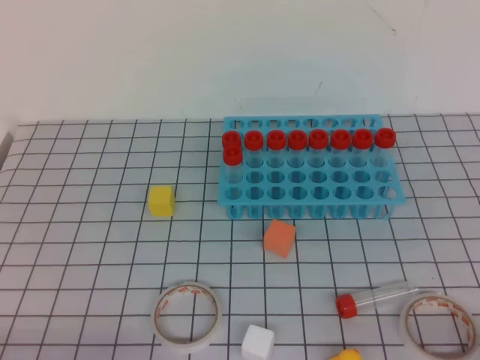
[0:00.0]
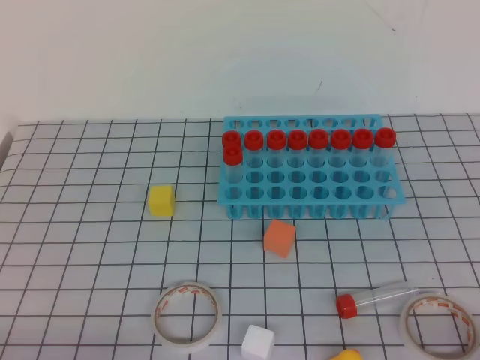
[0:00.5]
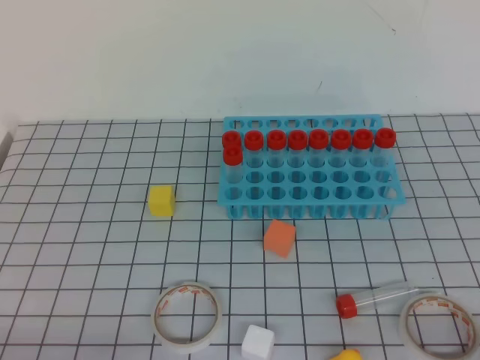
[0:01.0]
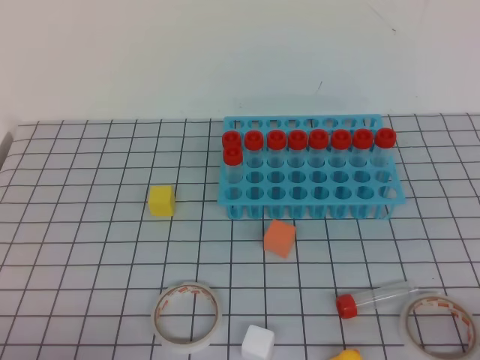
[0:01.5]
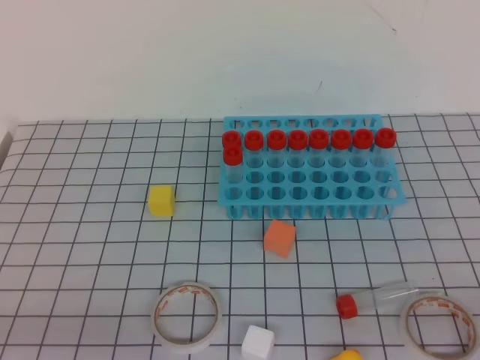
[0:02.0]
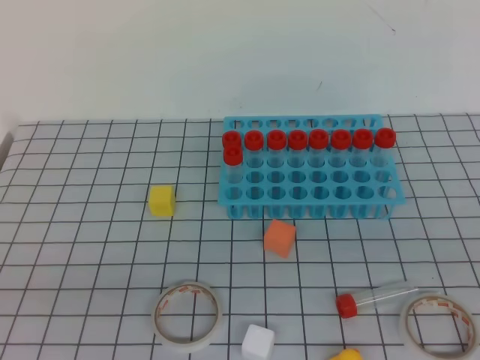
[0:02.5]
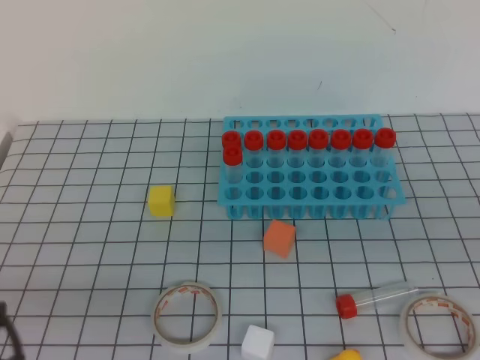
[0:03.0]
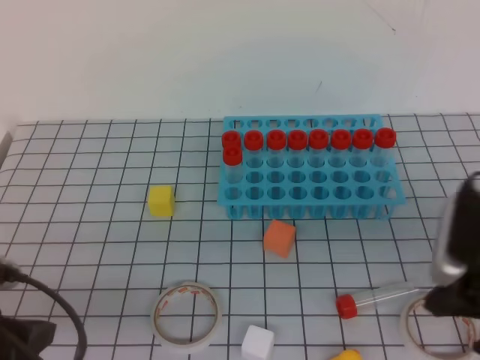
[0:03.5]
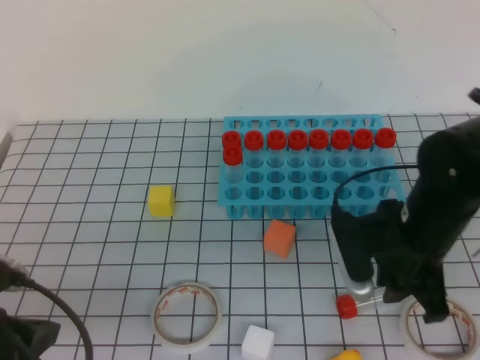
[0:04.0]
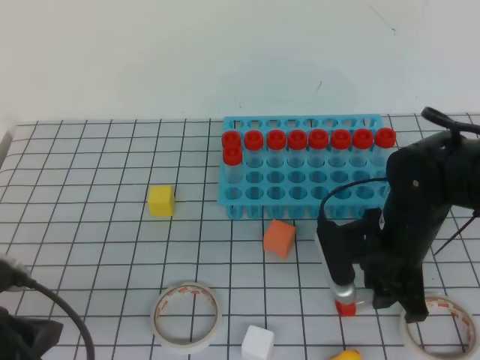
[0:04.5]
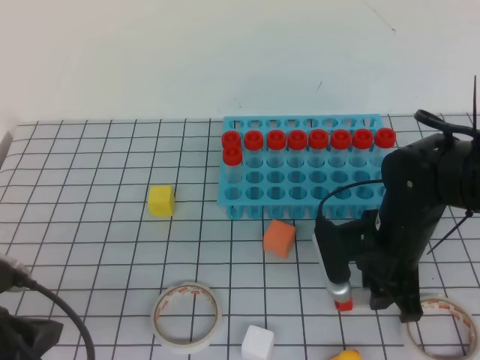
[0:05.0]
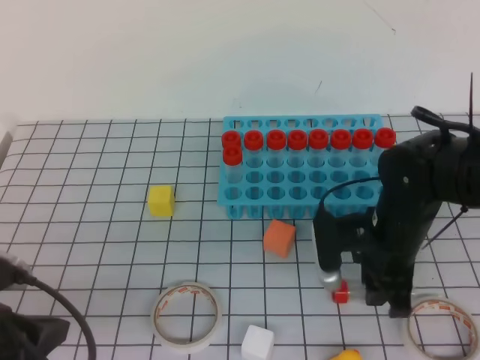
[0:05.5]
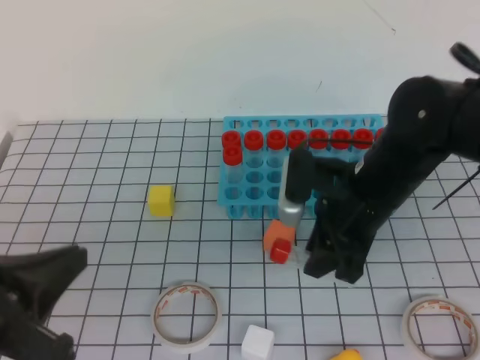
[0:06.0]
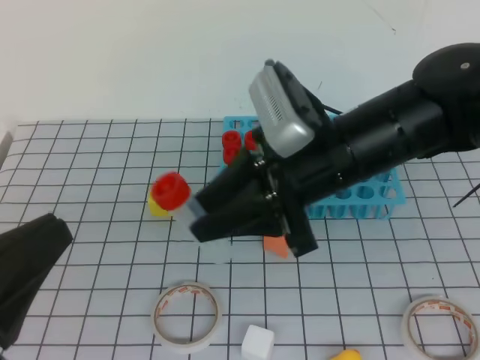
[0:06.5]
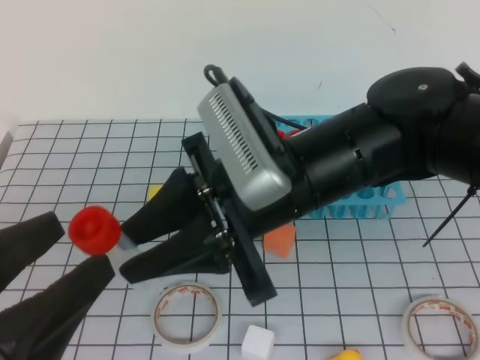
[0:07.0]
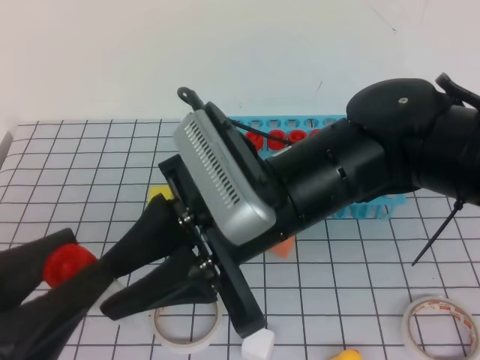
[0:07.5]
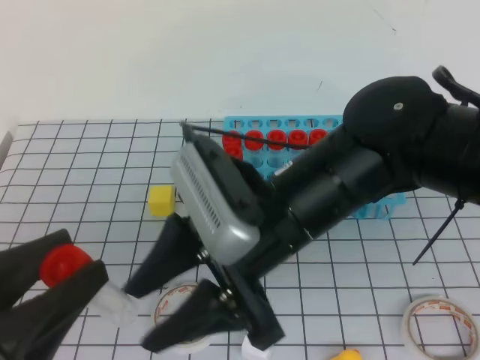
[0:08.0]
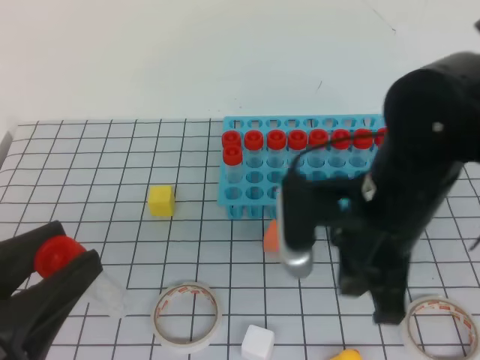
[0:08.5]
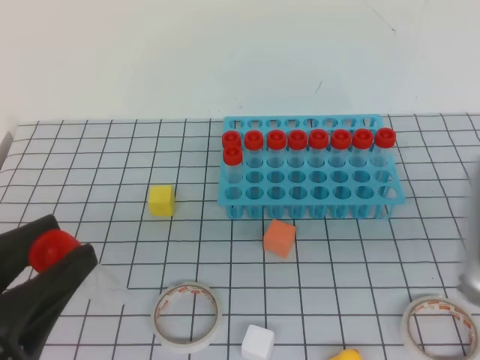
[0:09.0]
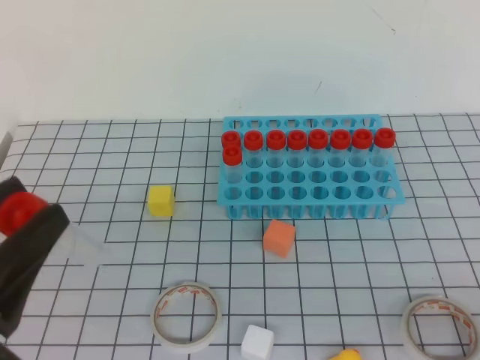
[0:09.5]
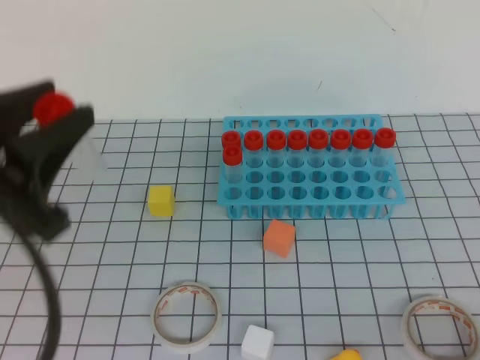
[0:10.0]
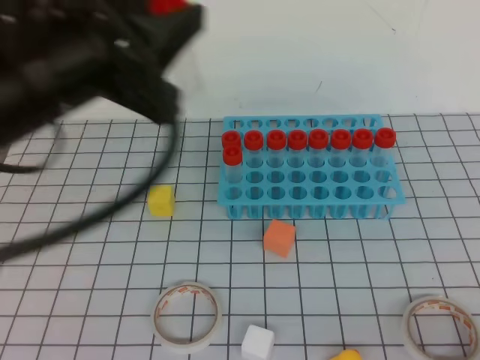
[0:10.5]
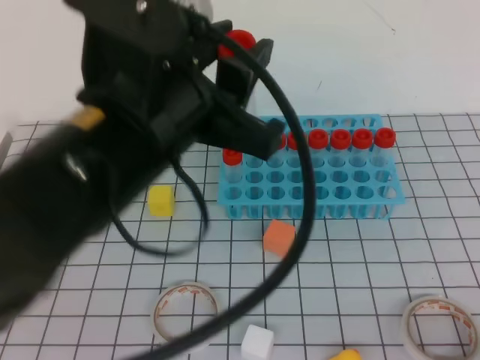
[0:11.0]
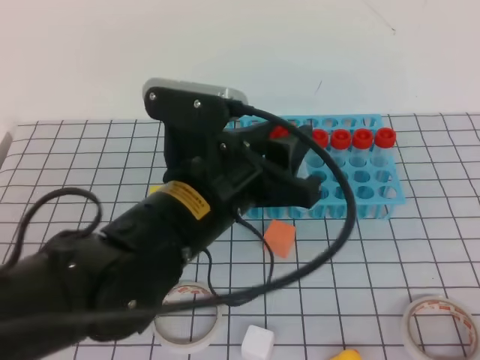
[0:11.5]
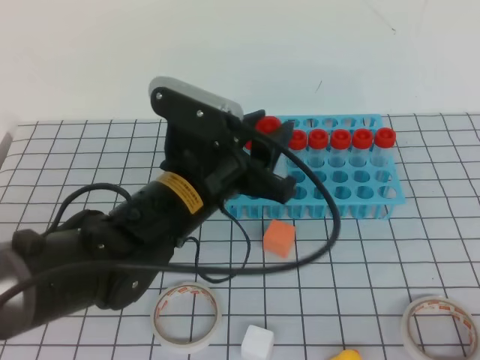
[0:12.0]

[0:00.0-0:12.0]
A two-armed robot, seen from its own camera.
0:02.0 to 0:04.0: The left gripper shifts about 10 cm forward. Meanwhile the right gripper shifts some 25 cm forward and to the left.
0:04.0 to 0:06.0: The right gripper travels to the left and forward by approximately 10 cm, and opens.
0:06.0 to 0:08.0: The right gripper travels to the left, upward and backward by approximately 15 cm, while the left gripper heads backward, covering some 5 cm, and opens.
0:08.0 to 0:10.0: The right gripper moves to the right and backward, about 30 cm, and closes its fingers. Meanwhile the left gripper shifts some 5 cm forward.
0:10.0 to 0:12.0: The left gripper travels to the right, forward and downward by some 20 cm.

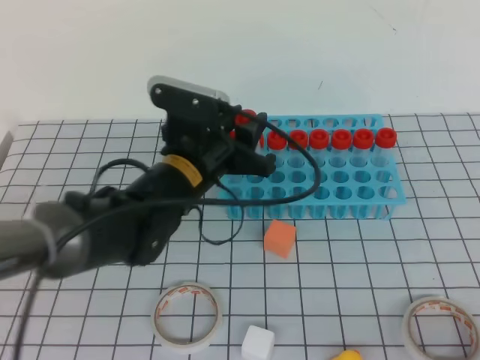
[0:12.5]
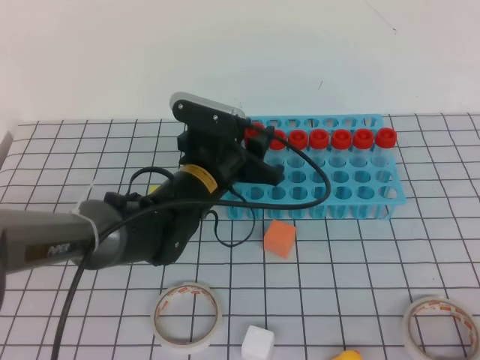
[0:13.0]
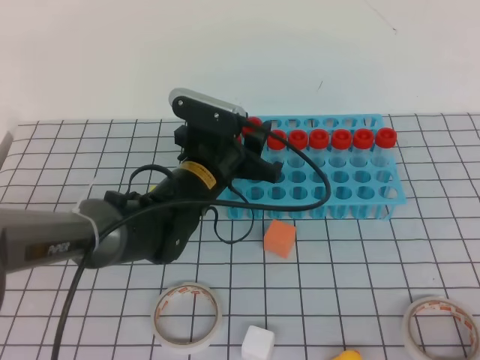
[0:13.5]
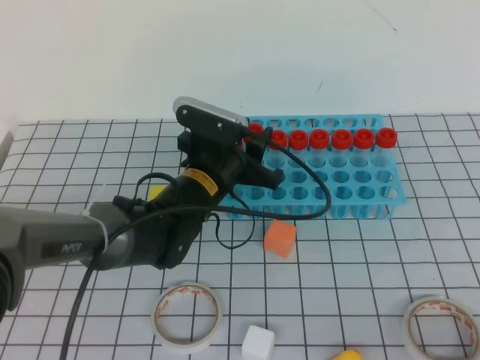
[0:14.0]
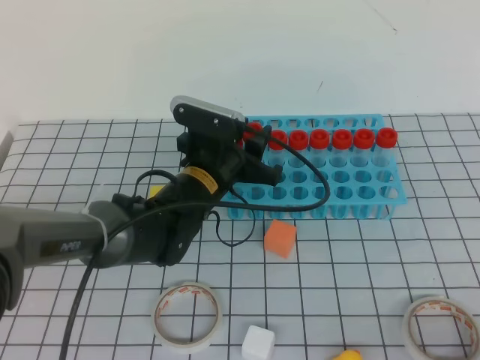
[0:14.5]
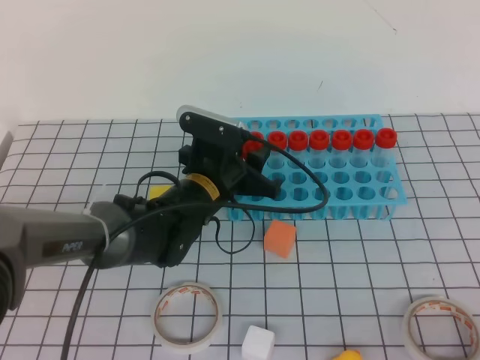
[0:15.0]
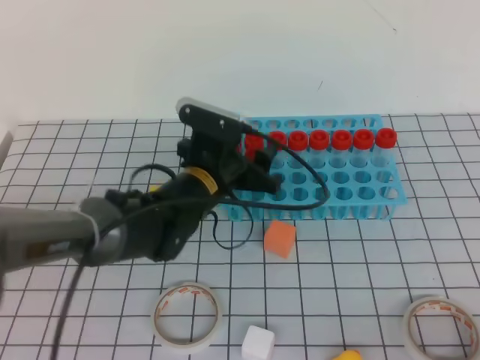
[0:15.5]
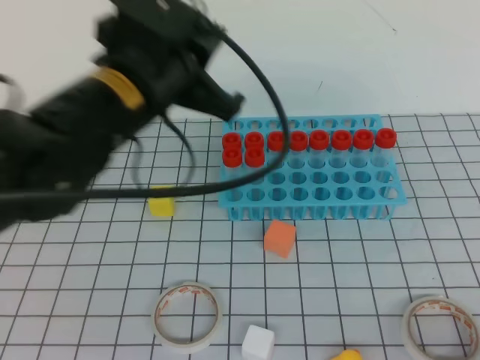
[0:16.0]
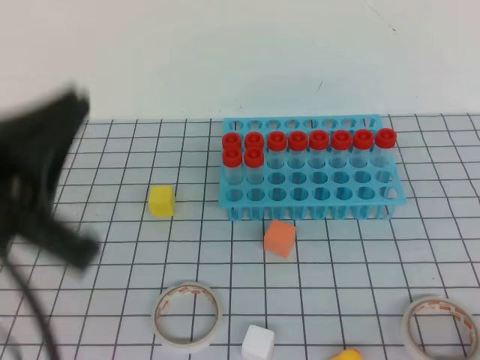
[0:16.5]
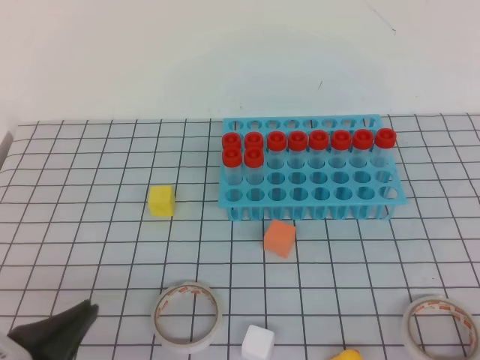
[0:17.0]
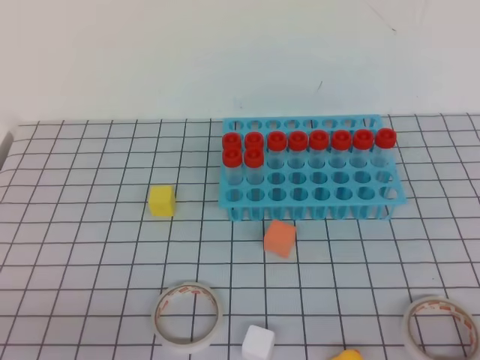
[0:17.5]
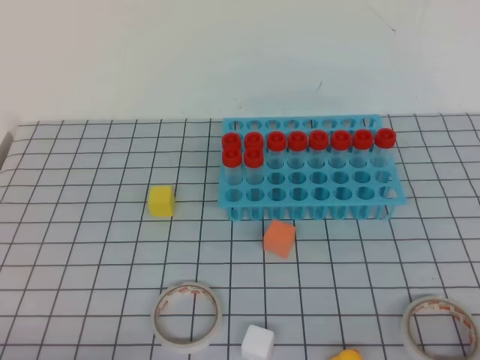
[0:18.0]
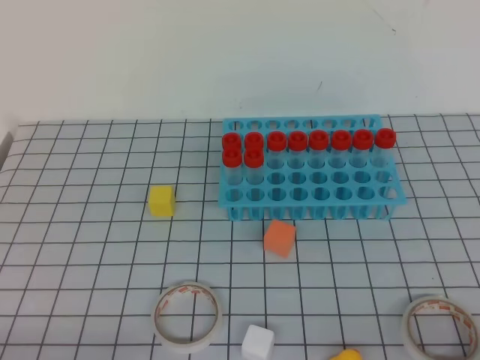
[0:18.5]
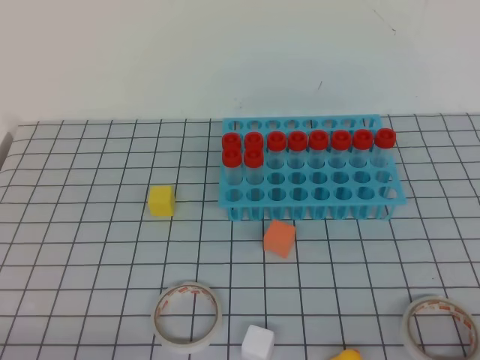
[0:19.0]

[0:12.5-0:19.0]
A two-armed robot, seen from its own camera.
0:12.5 to 0:14.5: The left gripper goes some 10 cm downward and forward.
0:14.5 to 0:17.0: The left gripper is displaced backward and to the left by approximately 30 cm, and closes up.
0:17.0 to 0:19.0: The left gripper travels downward and backward by roughly 10 cm.
